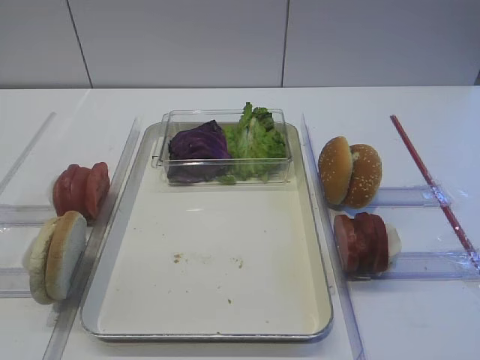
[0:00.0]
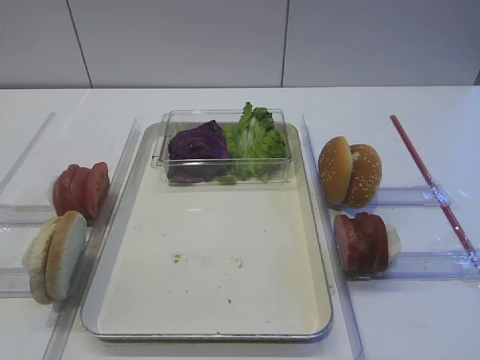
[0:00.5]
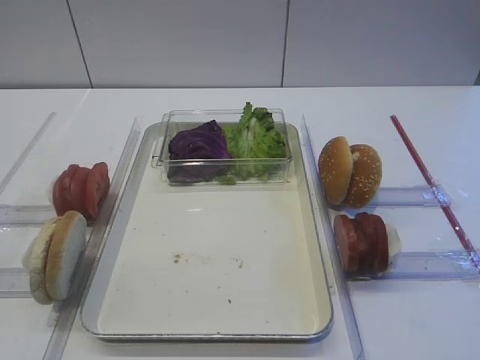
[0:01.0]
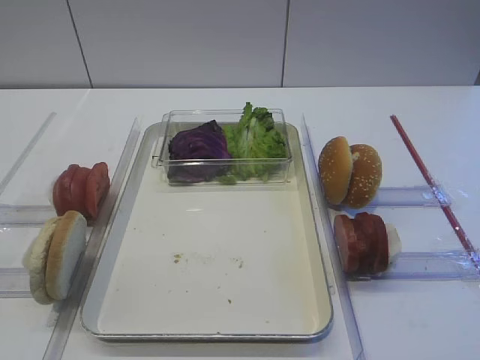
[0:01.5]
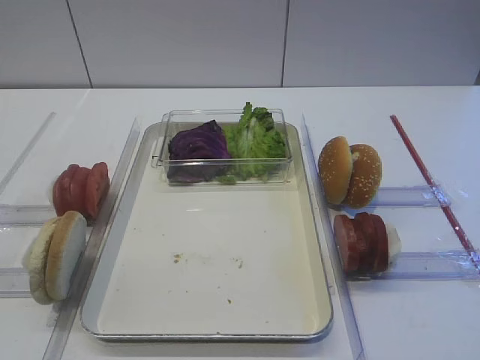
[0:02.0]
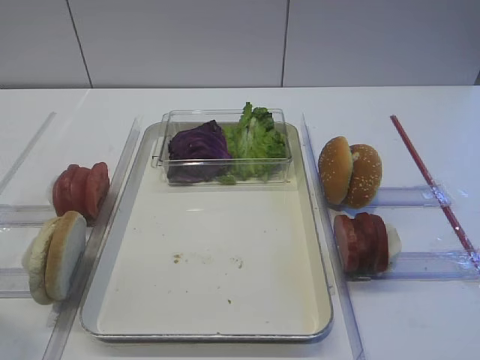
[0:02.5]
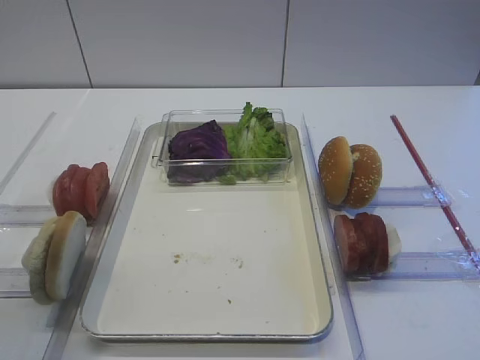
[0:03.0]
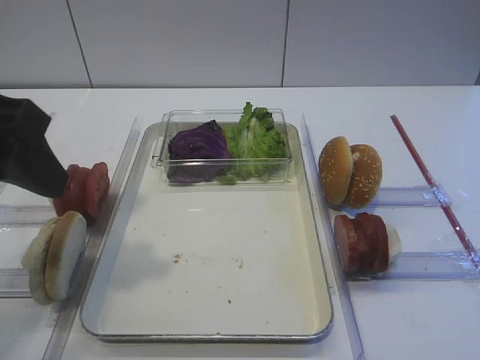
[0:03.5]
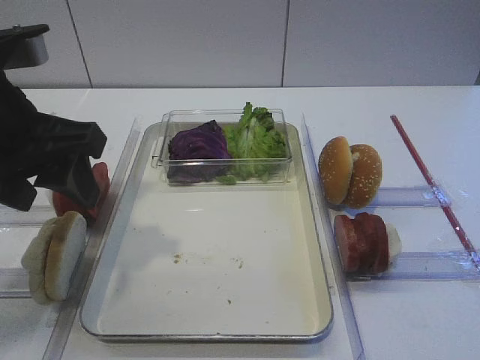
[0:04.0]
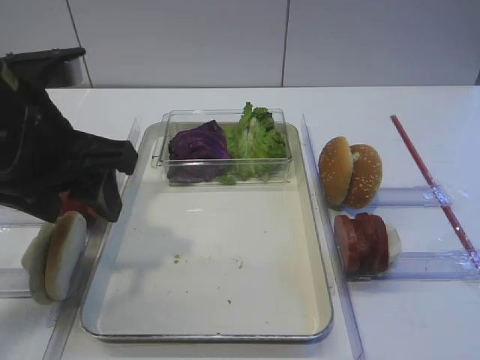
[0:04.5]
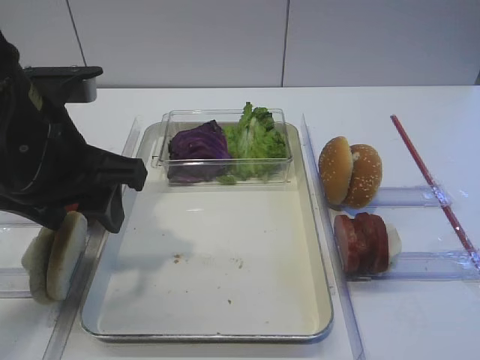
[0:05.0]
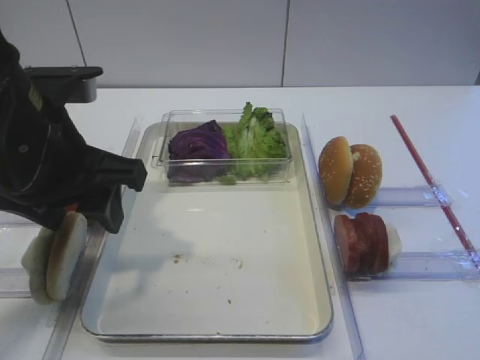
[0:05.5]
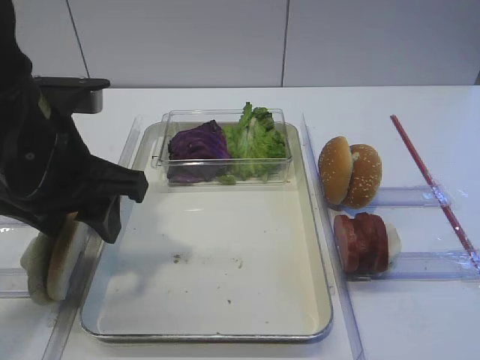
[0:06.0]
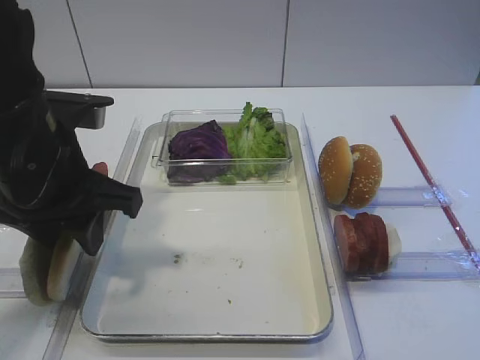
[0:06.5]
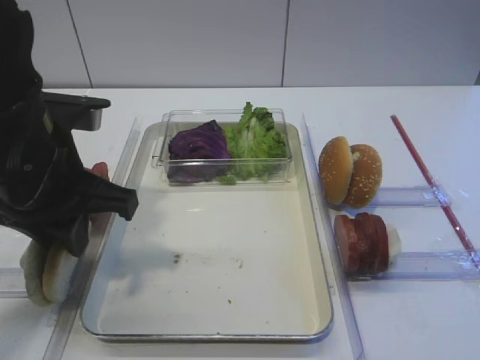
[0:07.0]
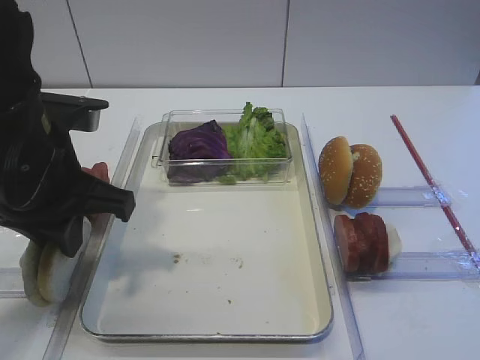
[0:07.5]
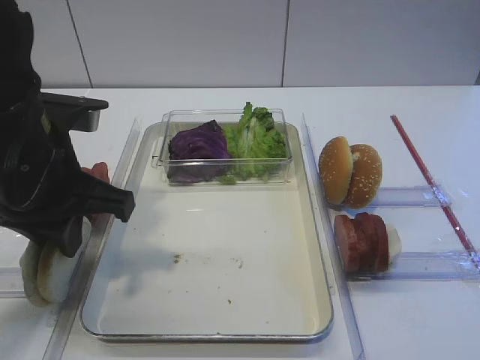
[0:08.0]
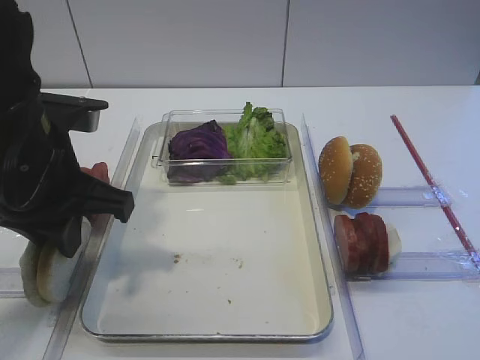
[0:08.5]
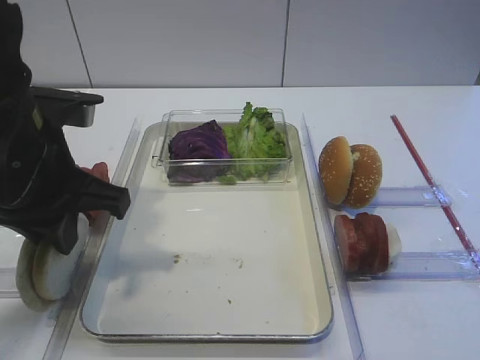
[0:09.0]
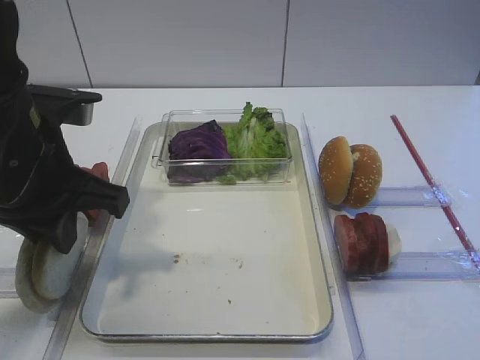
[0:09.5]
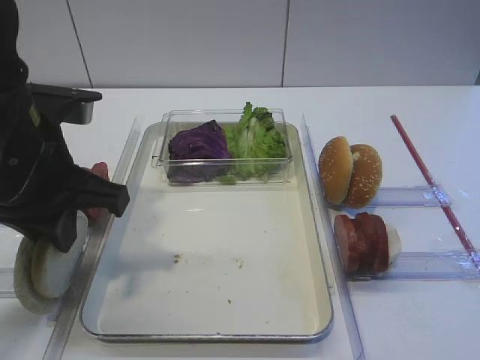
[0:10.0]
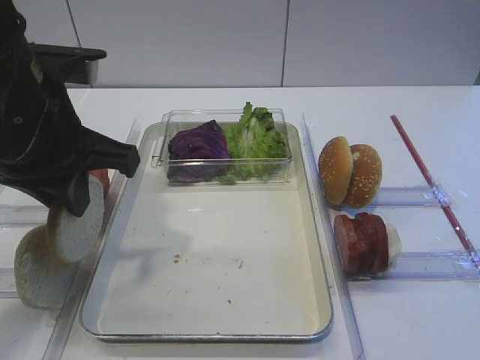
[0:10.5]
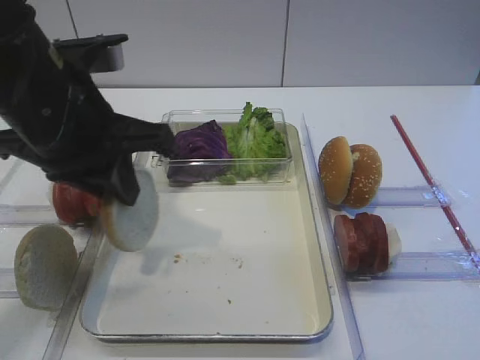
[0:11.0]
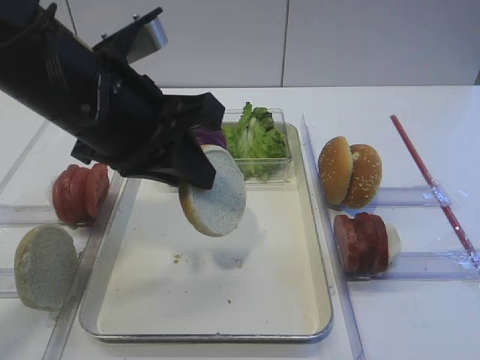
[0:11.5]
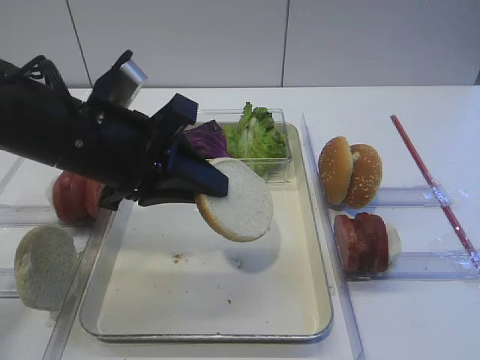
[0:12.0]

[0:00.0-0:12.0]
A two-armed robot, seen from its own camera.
Step, 0:00.0 to 0:10.0: Pick up the bread slice with the left gripper.
0:02.0 to 0:04.0: The left gripper shifts approximately 25 cm forward and to the right.
0:04.0 to 0:06.0: The left gripper changes place by approximately 5 cm.
0:06.0 to 0:08.0: The left gripper closes its fingers.
0:08.0 to 0:10.0: The two grippers keep their place.

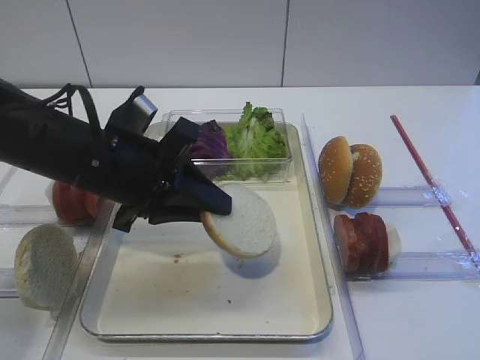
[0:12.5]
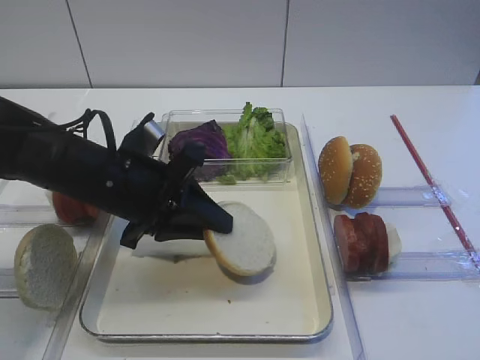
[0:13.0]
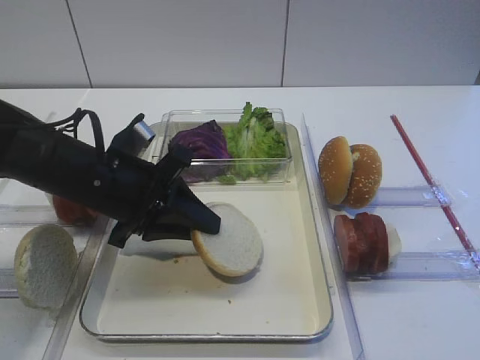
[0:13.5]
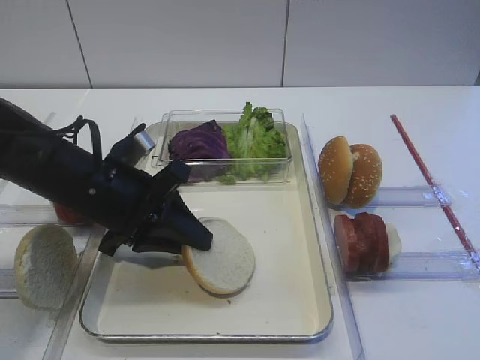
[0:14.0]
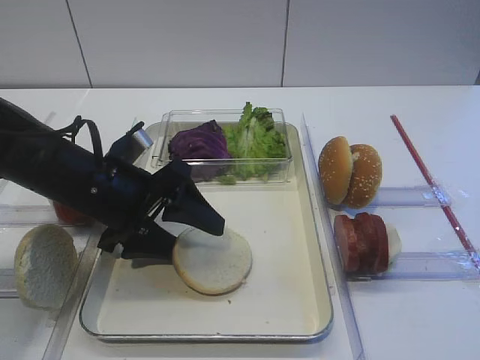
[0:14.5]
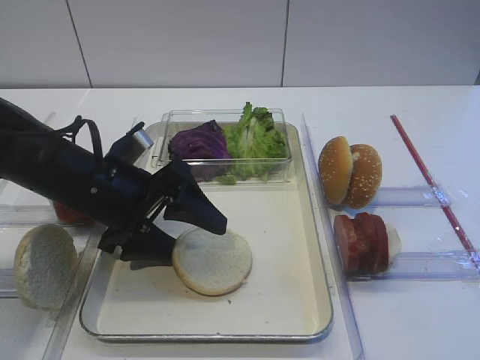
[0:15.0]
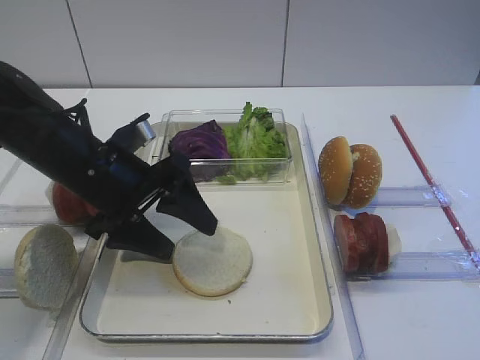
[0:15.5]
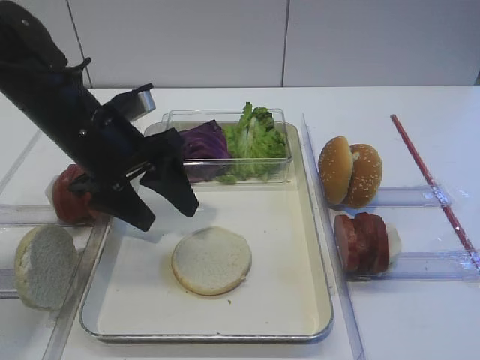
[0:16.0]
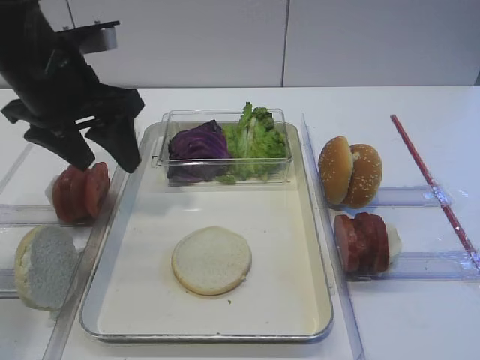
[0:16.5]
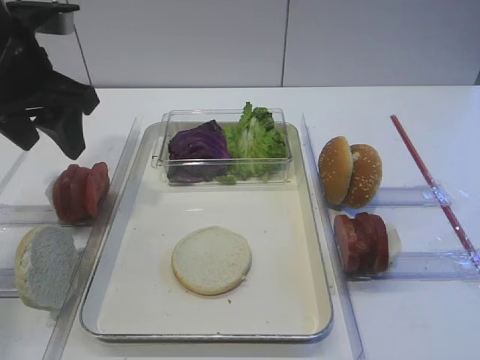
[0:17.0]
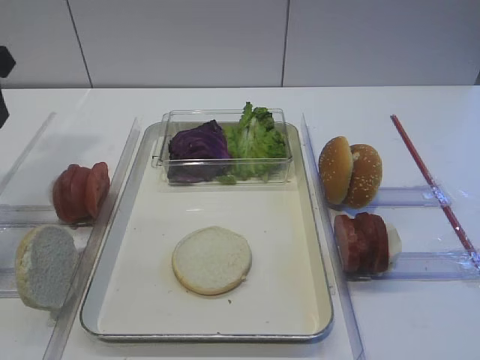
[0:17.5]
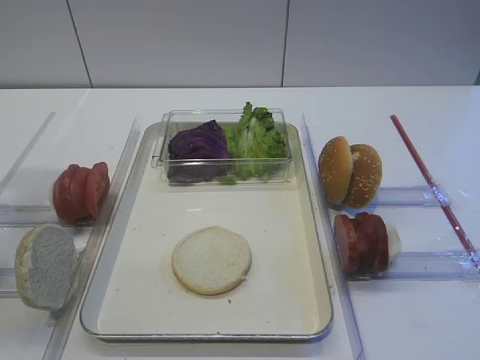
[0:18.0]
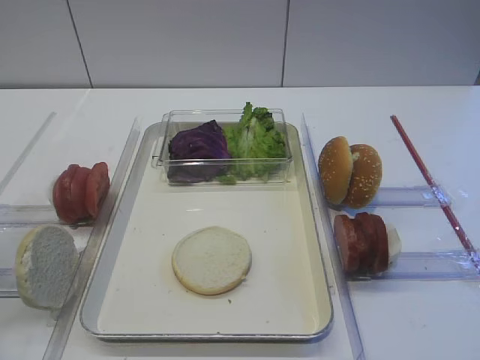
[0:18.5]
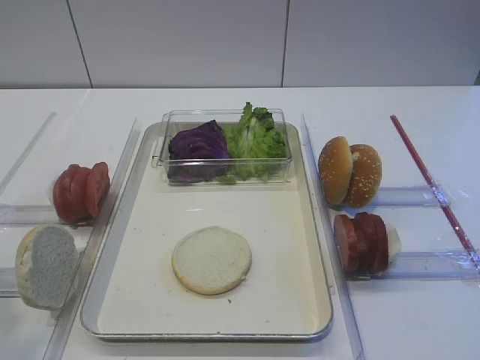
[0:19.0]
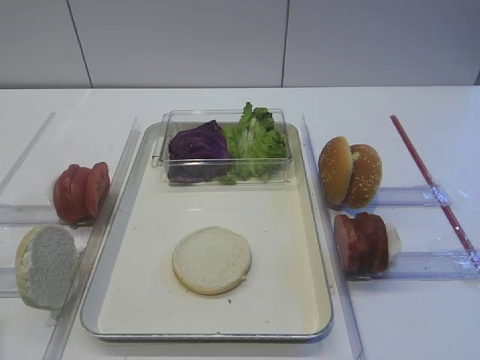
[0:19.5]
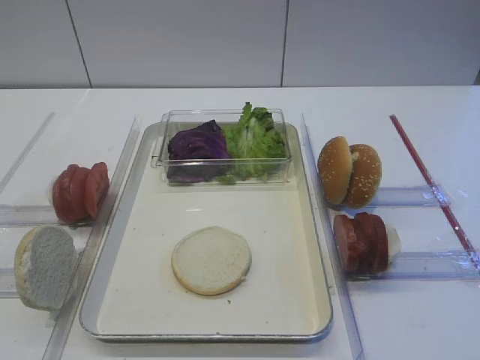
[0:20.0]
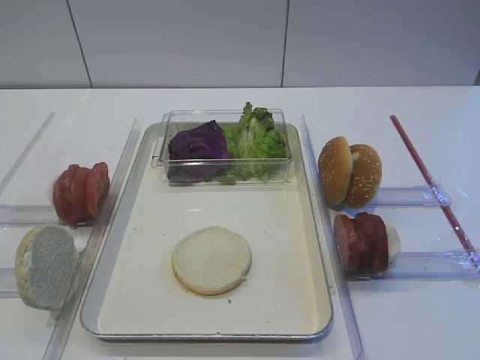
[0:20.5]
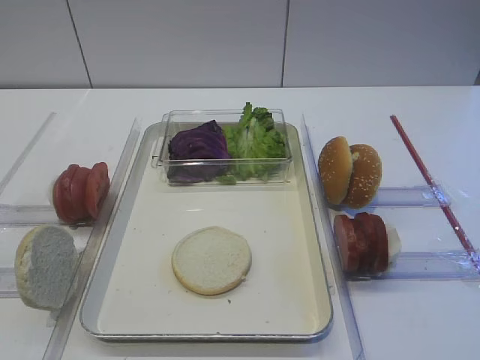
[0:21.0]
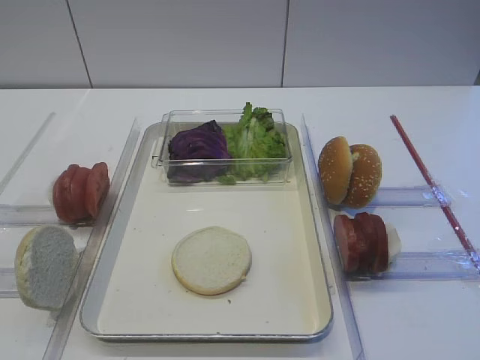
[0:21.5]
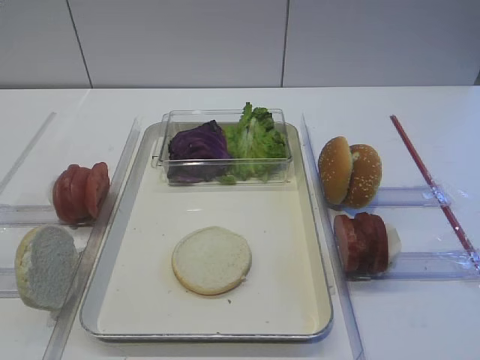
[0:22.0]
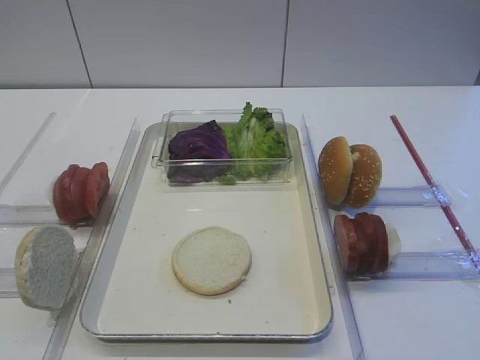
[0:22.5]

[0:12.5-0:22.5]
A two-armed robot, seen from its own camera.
Step, 0:12.5 to 0:15.5: Place the bread slice on the tray with the left gripper.
0:12.5 to 0:14.5: The left gripper opens.
0:14.5 to 0:16.5: The left gripper shifts about 10 cm upward.
0:16.5 to 0:18.5: The left gripper goes some 20 cm backward and to the left.
0:18.5 to 0:20.5: The left gripper goes roughly 15 cm backward and downward.
0:20.5 to 0:22.5: Both grippers stay put.

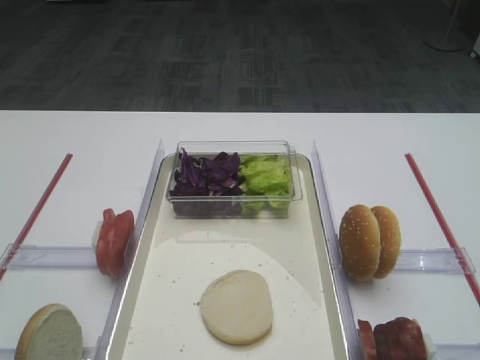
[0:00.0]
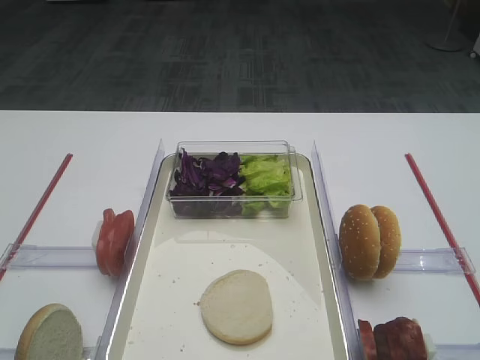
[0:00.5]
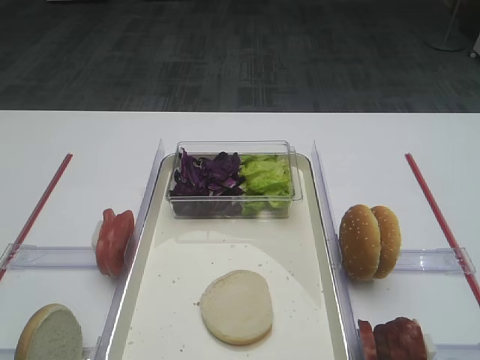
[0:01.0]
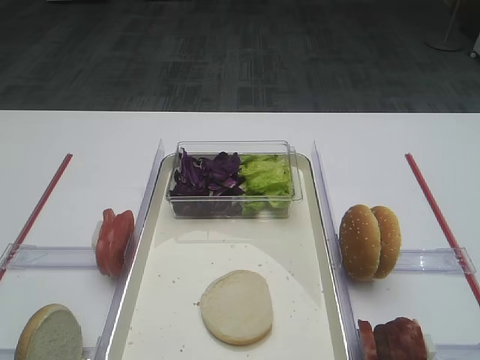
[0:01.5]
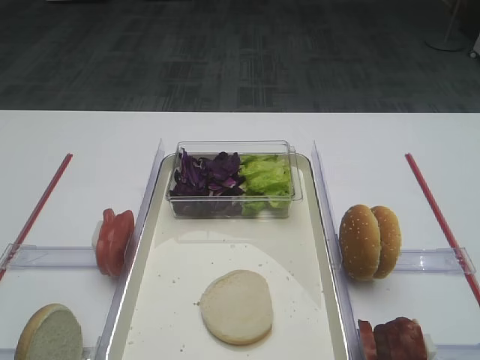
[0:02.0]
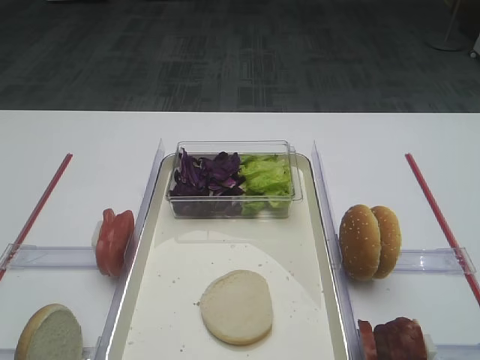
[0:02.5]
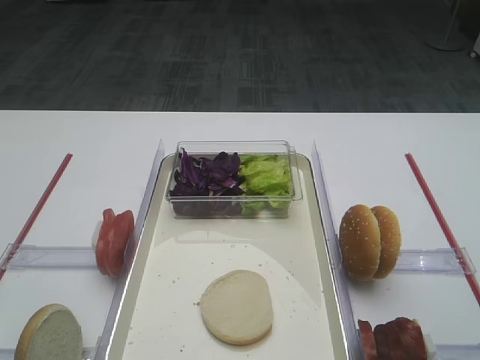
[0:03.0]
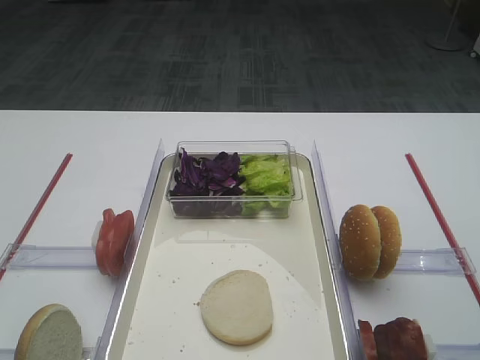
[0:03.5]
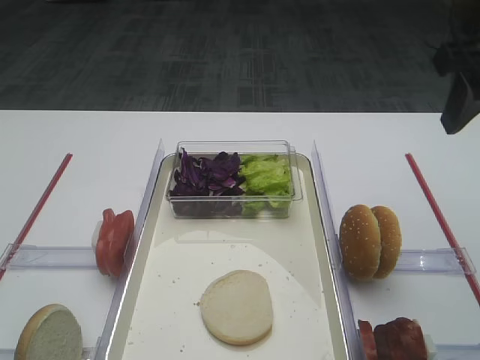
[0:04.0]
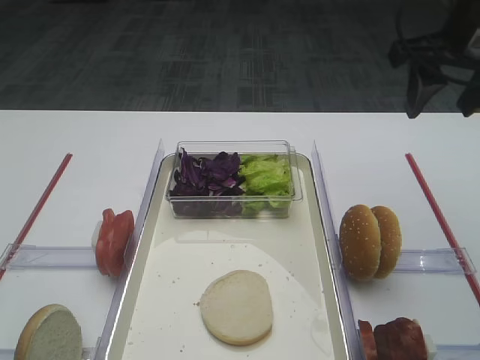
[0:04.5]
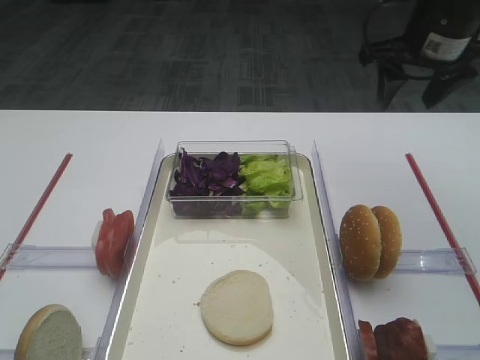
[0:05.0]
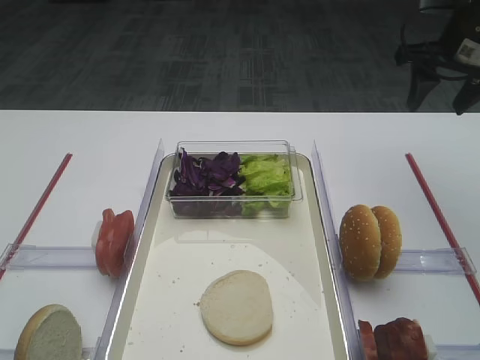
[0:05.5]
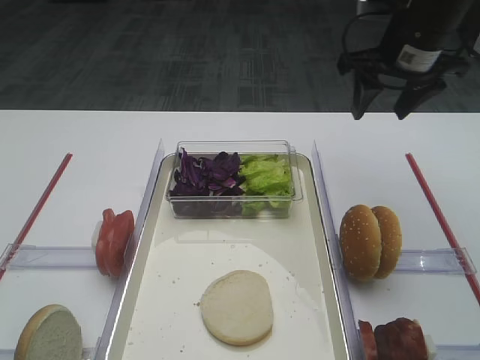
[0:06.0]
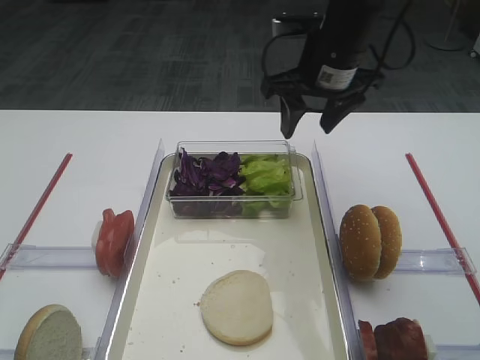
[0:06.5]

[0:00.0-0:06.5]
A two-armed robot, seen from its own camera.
0:02.0 to 0:04.5: The right gripper shifts approximately 30 cm forward.
0:04.5 to 0:06.5: The right gripper travels to the left, forward and downward by approximately 15 cm.
